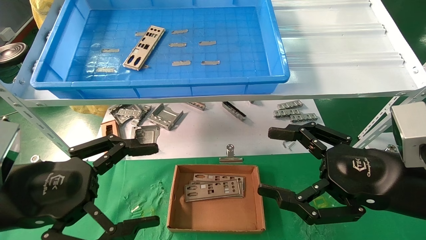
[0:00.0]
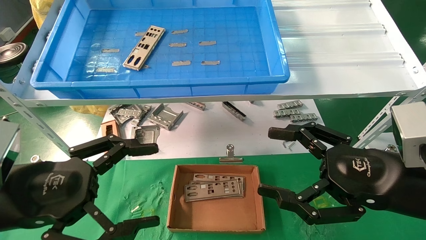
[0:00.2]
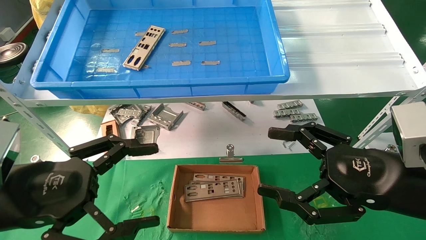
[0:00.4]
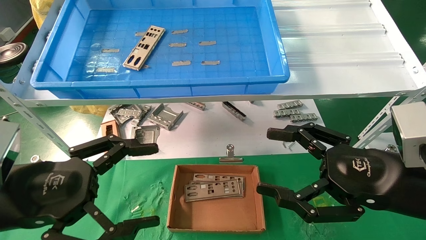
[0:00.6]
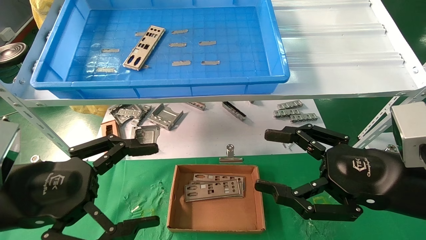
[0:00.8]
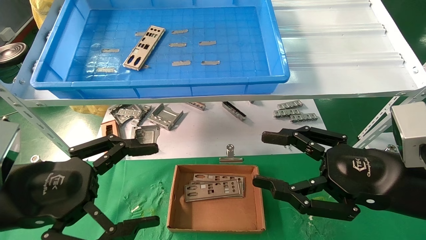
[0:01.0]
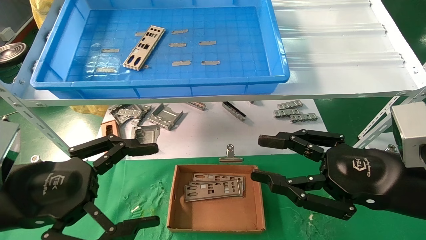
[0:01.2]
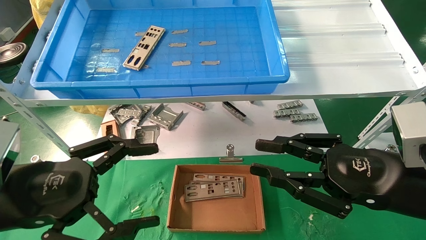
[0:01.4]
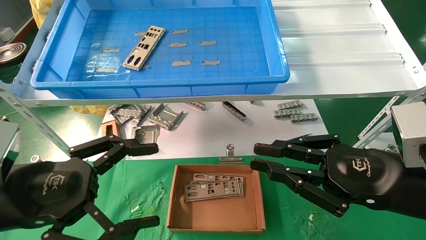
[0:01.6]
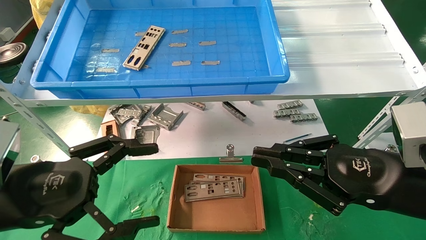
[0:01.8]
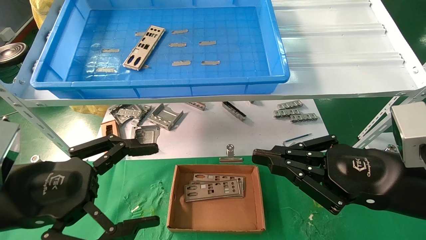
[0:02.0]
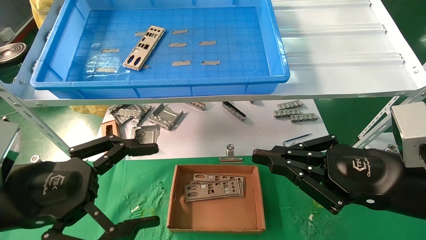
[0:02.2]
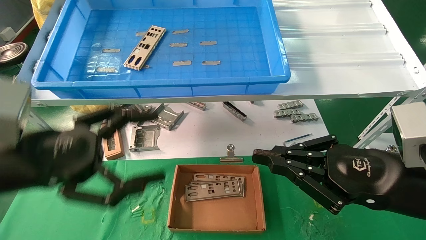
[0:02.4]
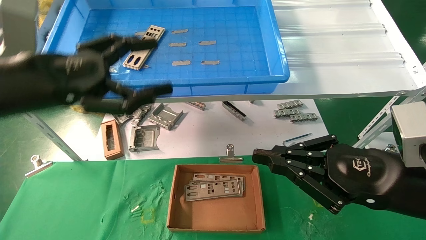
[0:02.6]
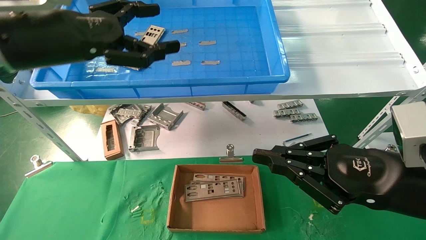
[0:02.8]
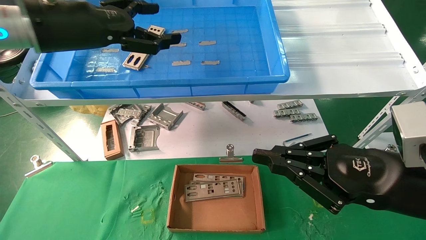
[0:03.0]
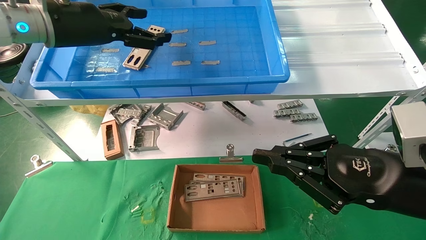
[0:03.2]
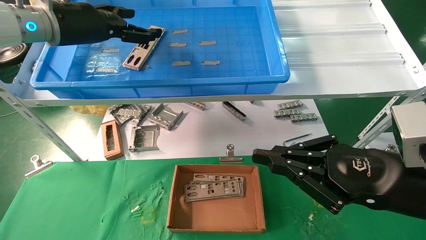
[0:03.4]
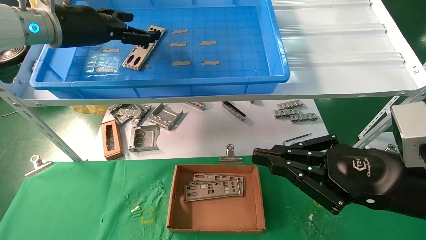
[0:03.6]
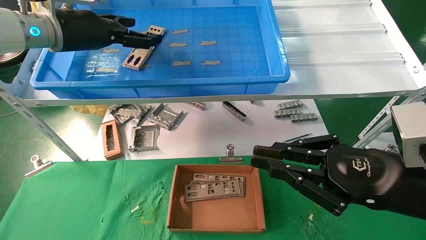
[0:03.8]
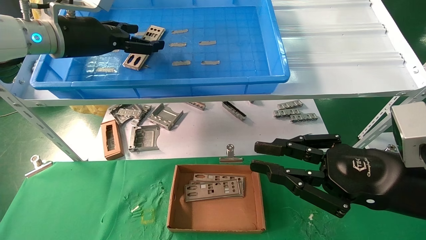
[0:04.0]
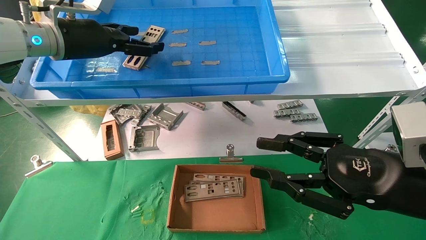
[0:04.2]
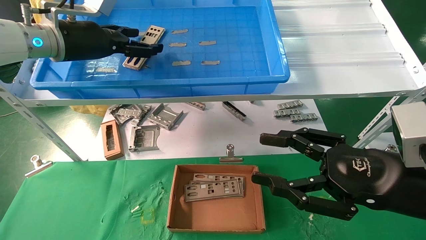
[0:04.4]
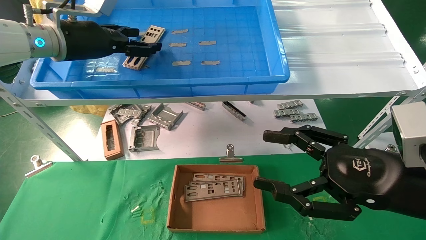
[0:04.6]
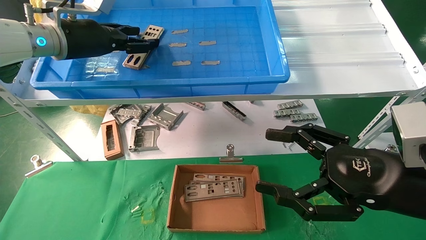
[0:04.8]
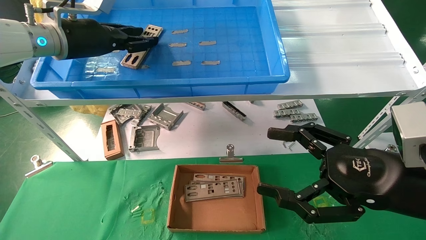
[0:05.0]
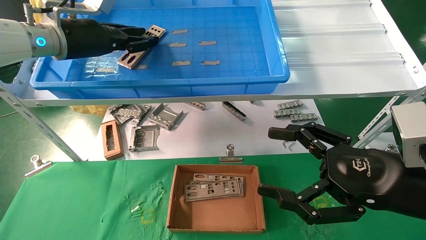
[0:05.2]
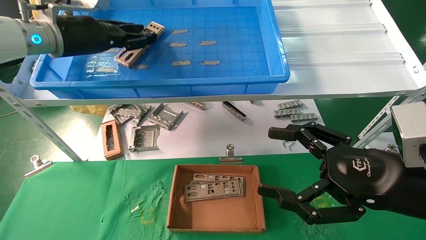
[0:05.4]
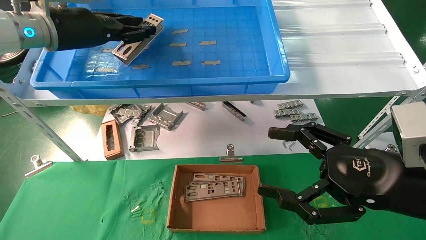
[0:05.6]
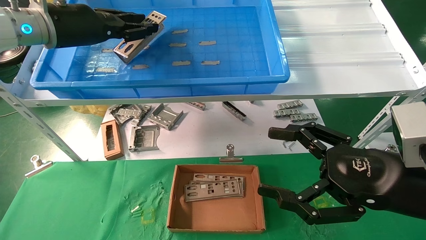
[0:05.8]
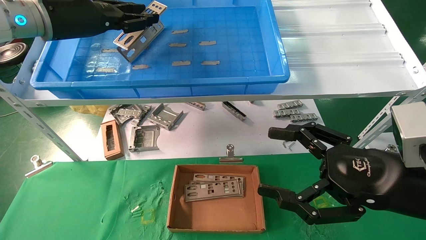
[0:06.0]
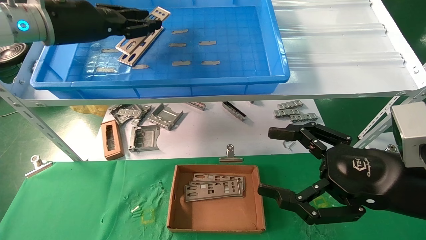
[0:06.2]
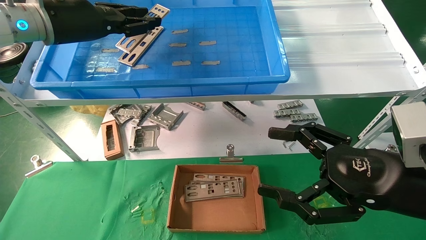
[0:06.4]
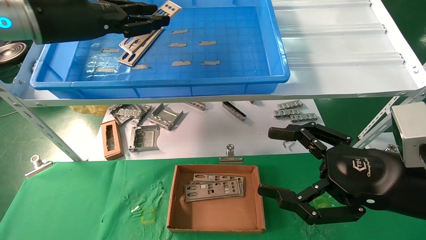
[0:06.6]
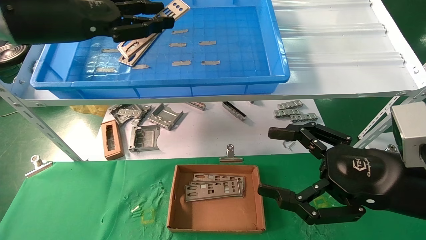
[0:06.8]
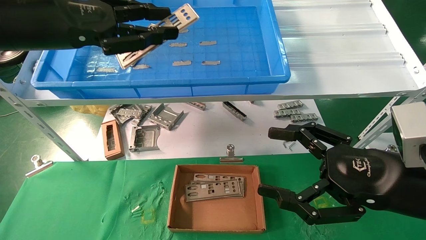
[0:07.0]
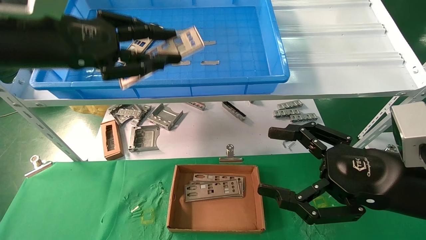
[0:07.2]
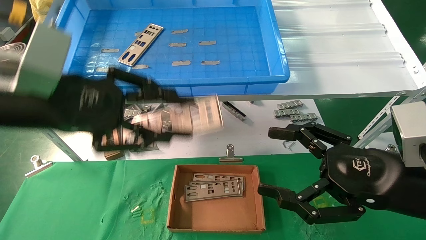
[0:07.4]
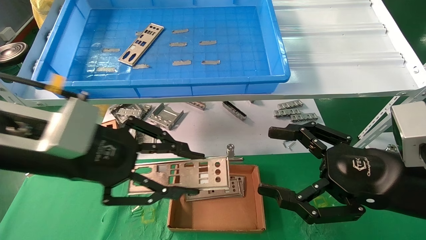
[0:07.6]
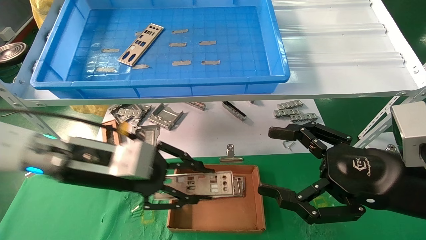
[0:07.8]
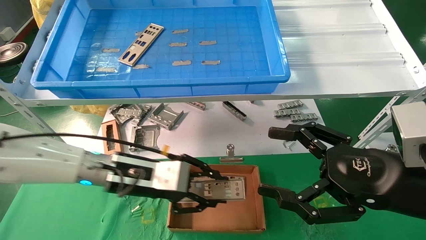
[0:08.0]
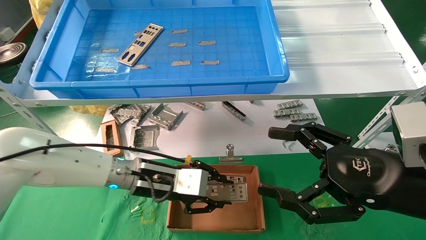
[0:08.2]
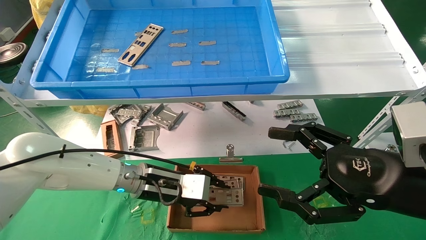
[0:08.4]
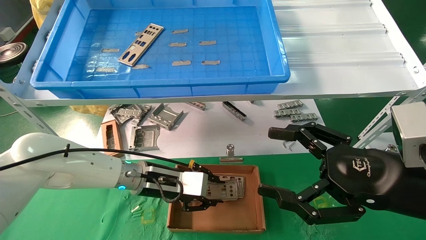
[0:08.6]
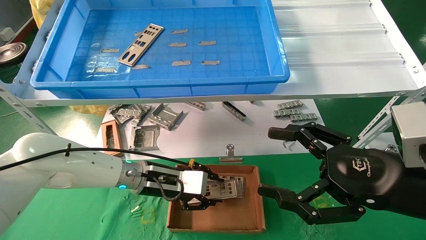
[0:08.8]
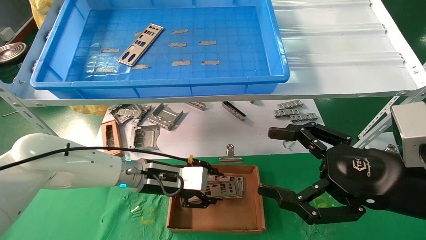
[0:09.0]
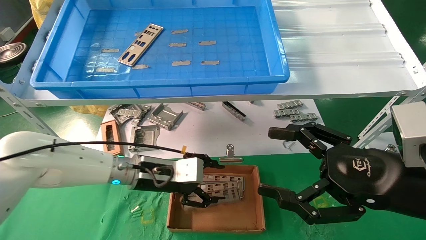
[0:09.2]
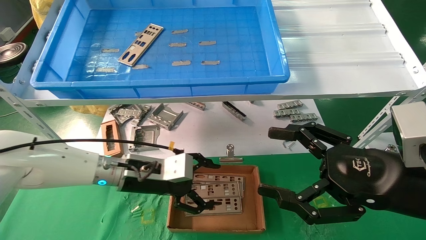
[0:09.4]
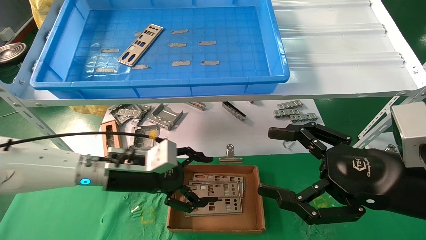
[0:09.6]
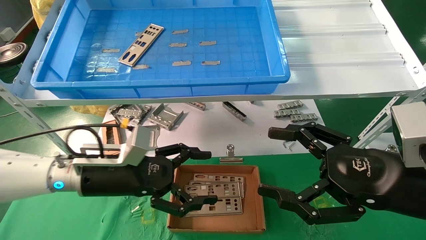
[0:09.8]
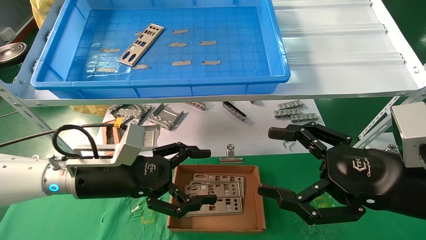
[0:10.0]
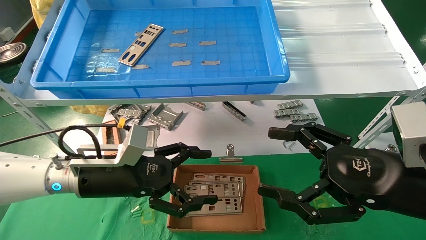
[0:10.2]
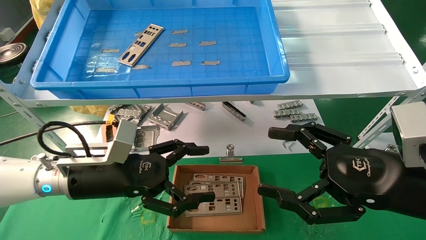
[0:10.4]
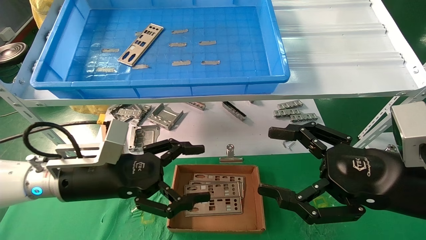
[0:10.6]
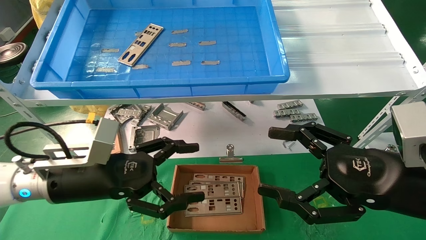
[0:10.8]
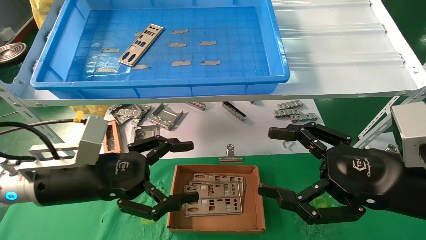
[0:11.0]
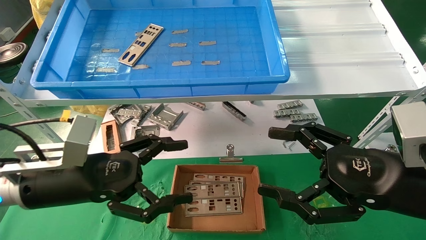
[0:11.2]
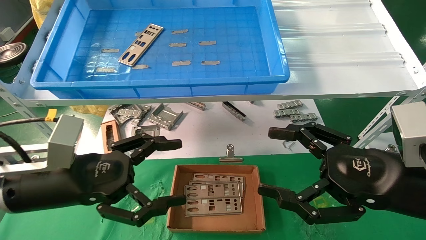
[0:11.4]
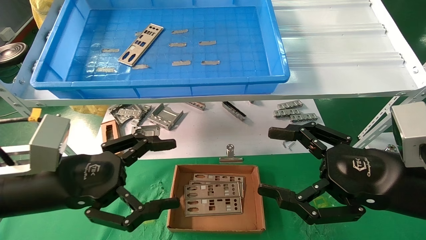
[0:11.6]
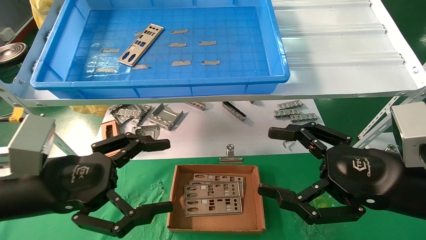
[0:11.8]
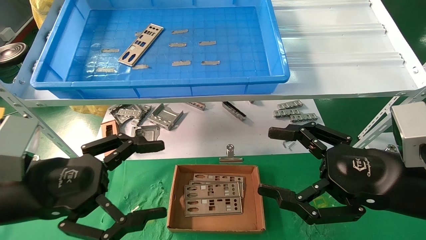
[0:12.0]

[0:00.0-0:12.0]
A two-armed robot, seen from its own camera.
Task of the whole recording: pick up the parts on the tray and put them in the cardboard box.
Step, 0:02.6 to 0:05.2: Pick up the IO bracket from the container box.
Step, 0:05.4 to 0:08.8: Place the IO bracket into the ingredient slot.
0:00.0 to 0:01.6: The right gripper closes up.
0:01.6 to 0:03.0: The left gripper travels upward and forward by about 25 cm.
0:03.0 to 0:04.4: The left gripper heads forward, covering about 5 cm; the right gripper opens.
0:04.4 to 0:06.0: The left gripper closes its fingers. The right gripper opens.
0:06.0 to 0:07.6: The left gripper shifts some 20 cm downward and backward.
0:07.6 to 0:09.0: The left gripper goes some 20 cm downward, forward and to the right.
0:09.0 to 0:10.4: The left gripper shifts some 10 cm backward and to the left, and opens its fingers.
0:10.4 to 0:12.0: The left gripper heads backward and to the left, covering roughly 10 cm.

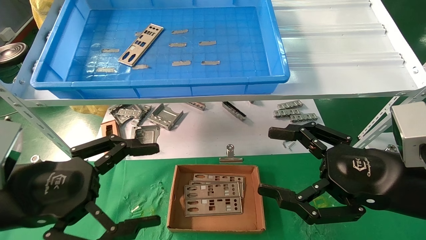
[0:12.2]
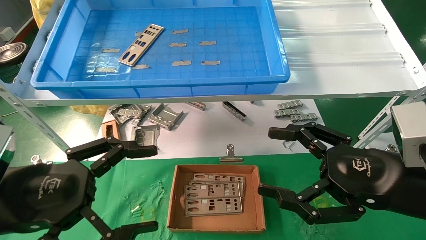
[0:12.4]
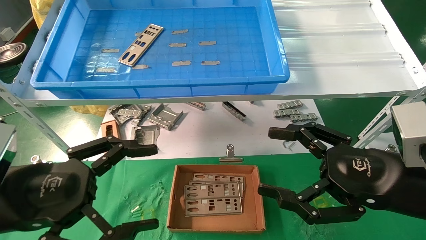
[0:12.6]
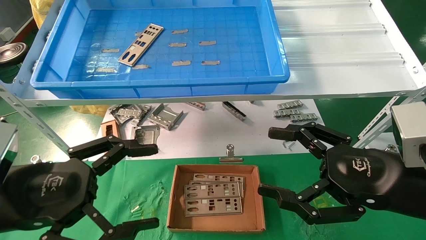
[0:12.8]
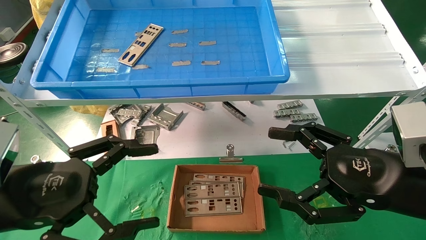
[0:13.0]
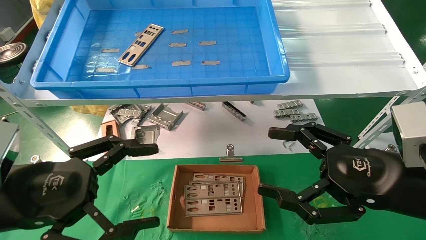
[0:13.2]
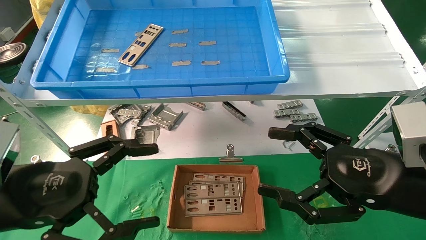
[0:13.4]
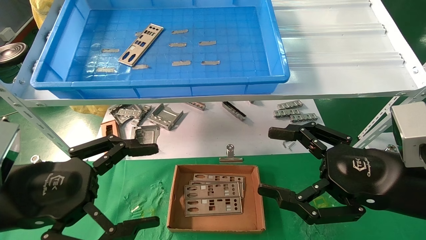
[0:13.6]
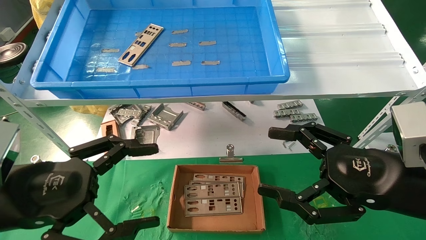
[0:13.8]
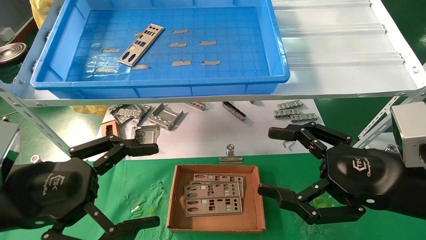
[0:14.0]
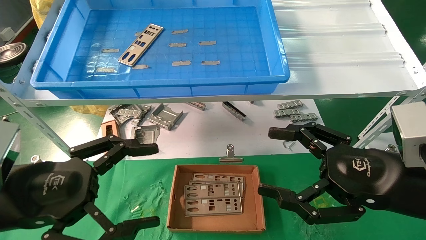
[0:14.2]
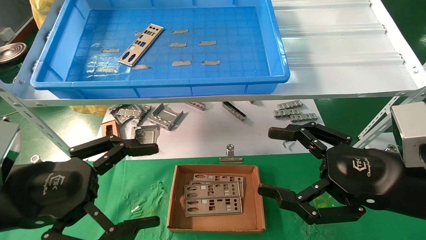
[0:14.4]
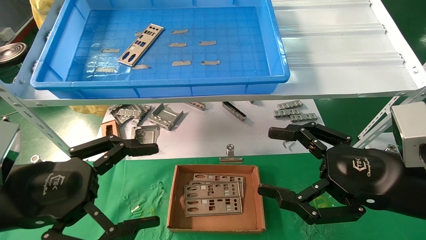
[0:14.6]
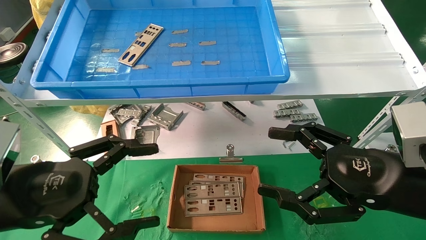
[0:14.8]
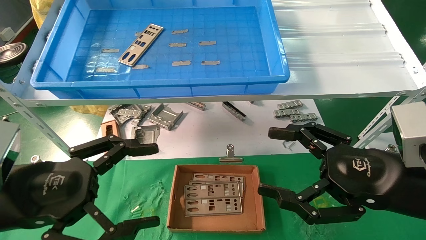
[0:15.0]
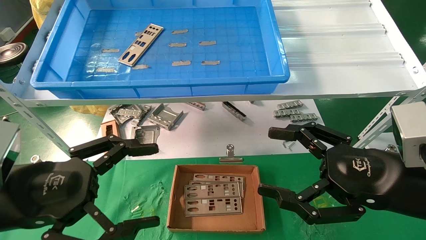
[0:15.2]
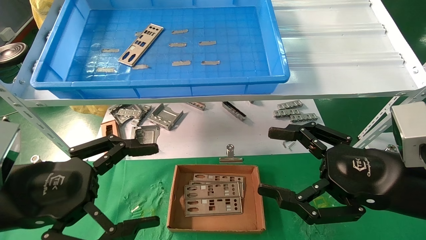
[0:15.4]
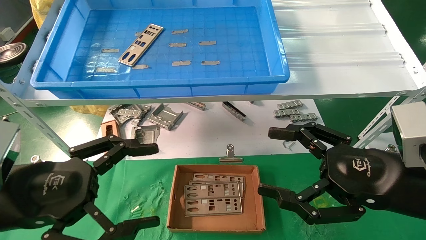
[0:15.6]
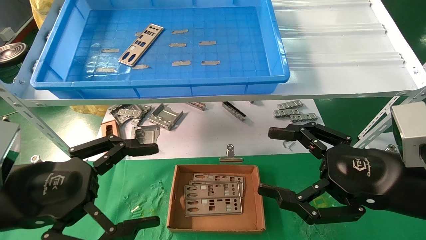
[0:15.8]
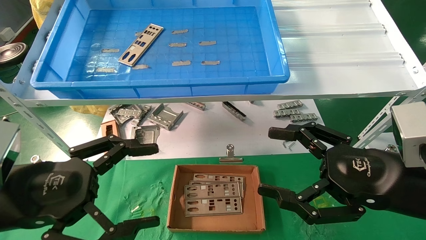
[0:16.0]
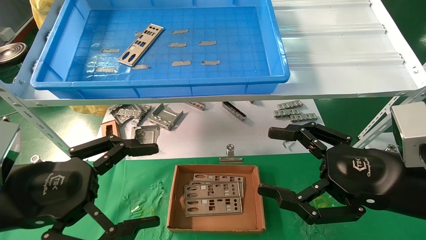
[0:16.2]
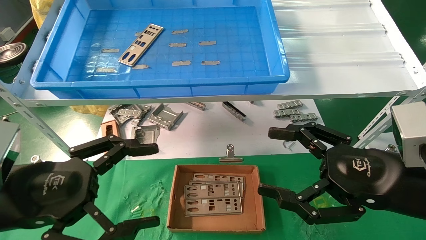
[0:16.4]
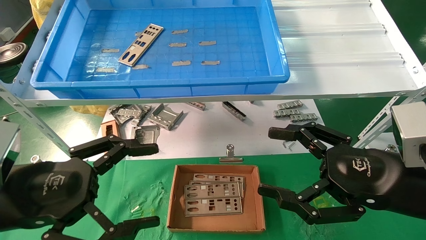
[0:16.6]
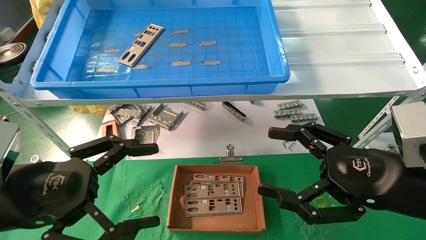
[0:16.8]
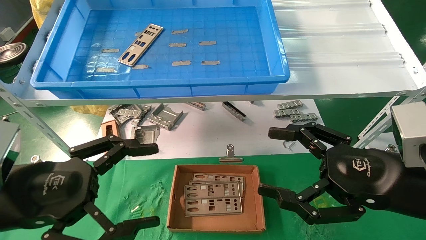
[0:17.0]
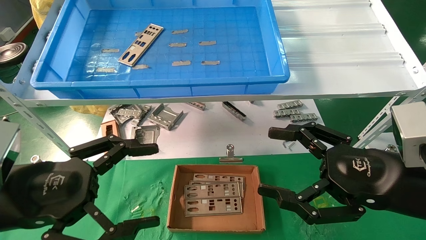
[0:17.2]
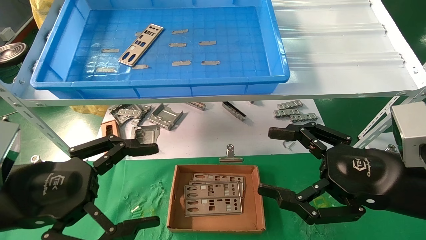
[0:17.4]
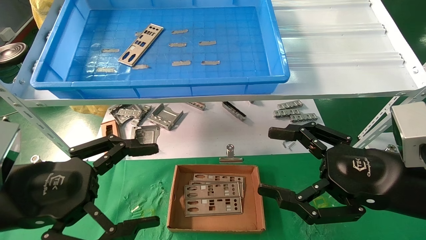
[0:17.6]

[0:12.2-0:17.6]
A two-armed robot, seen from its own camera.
Task of the whole recording: pick up the parts on the tray and put them in the cardboard box.
0:12.2 to 0:17.6: The two grippers keep their place.
